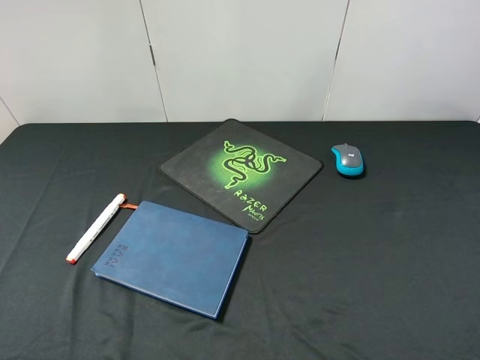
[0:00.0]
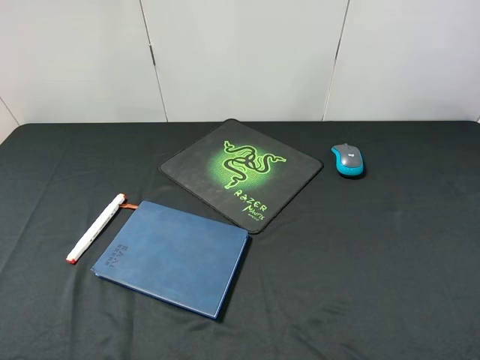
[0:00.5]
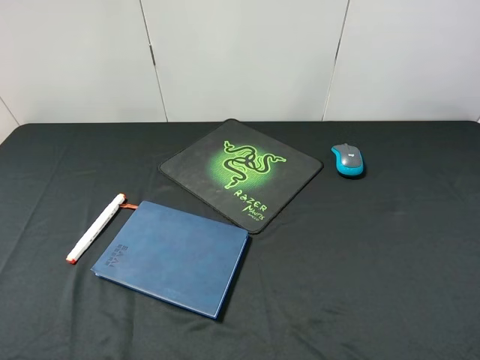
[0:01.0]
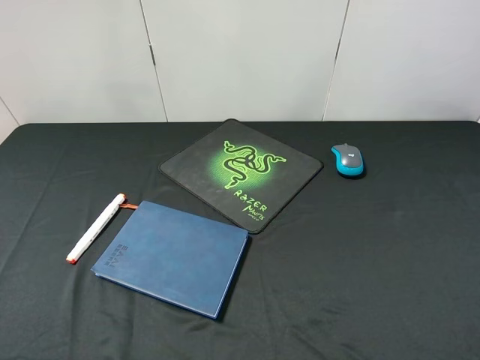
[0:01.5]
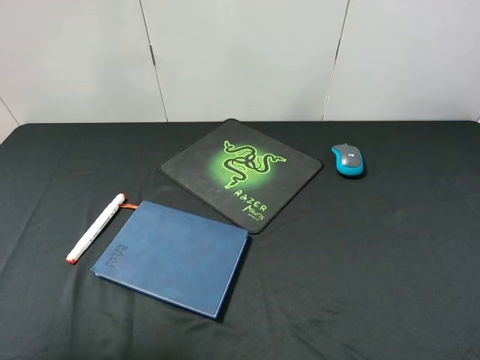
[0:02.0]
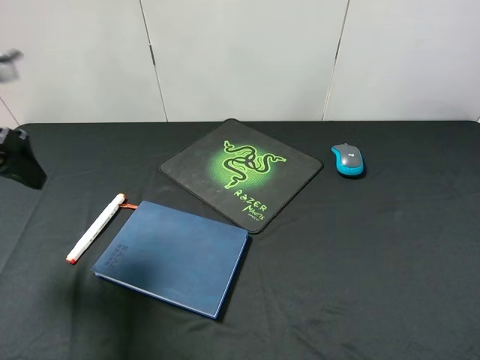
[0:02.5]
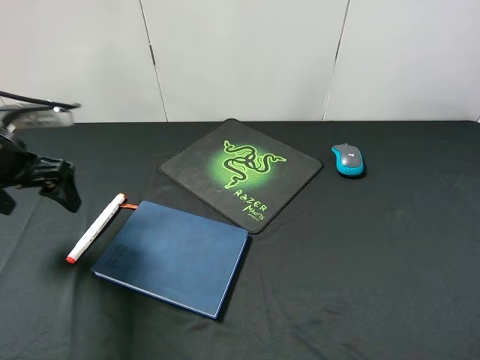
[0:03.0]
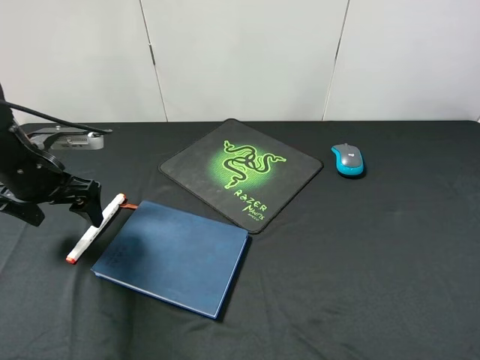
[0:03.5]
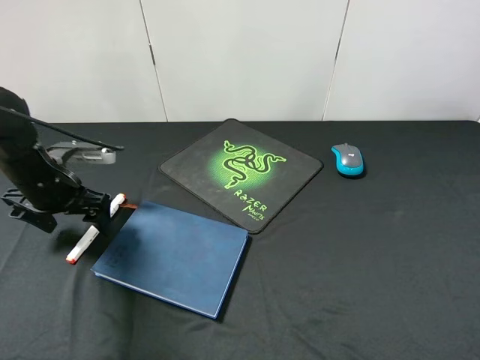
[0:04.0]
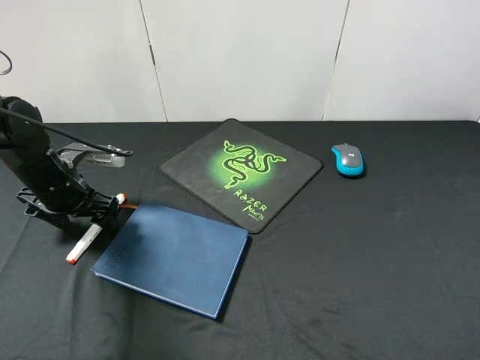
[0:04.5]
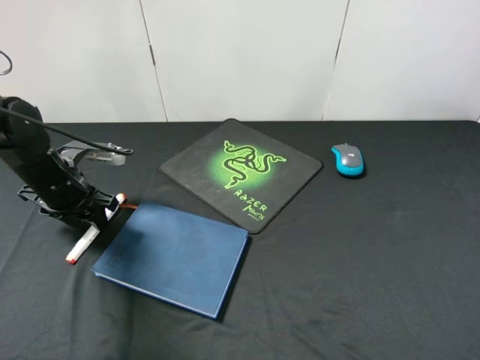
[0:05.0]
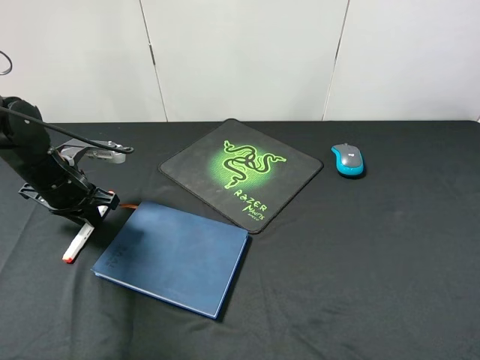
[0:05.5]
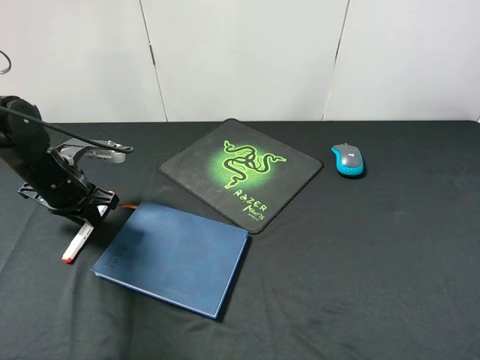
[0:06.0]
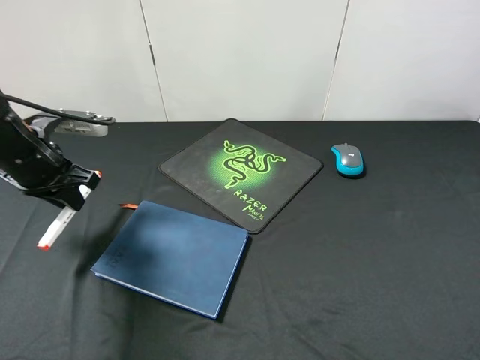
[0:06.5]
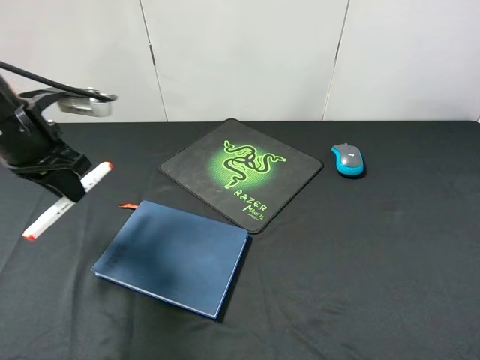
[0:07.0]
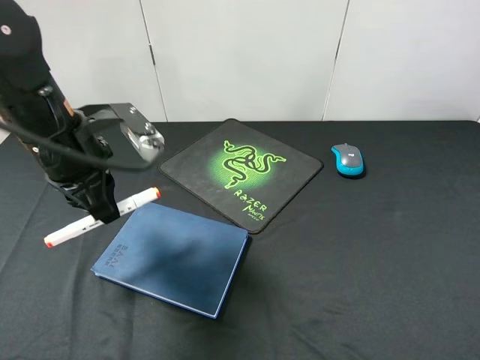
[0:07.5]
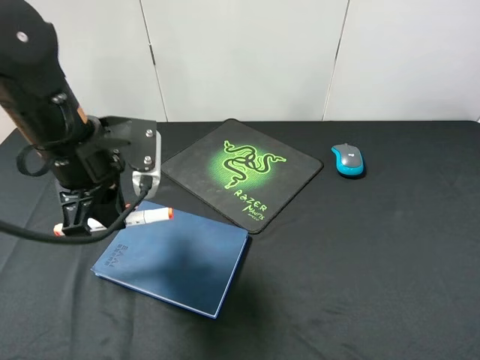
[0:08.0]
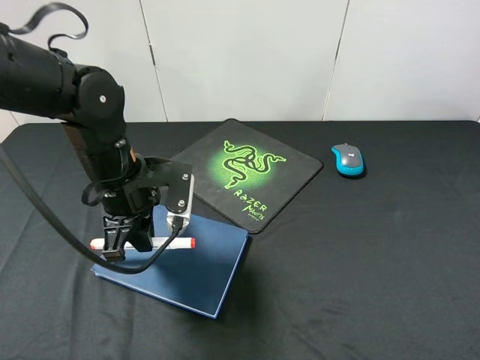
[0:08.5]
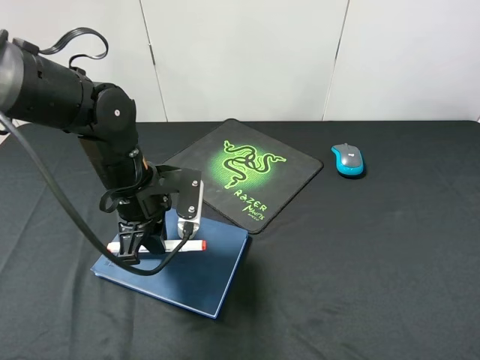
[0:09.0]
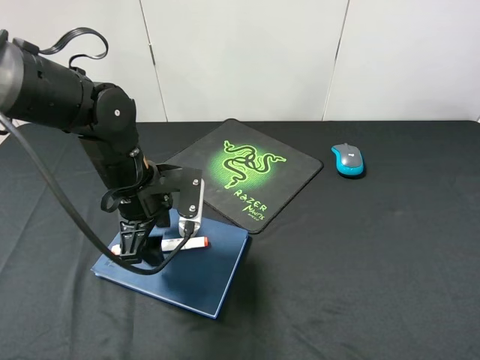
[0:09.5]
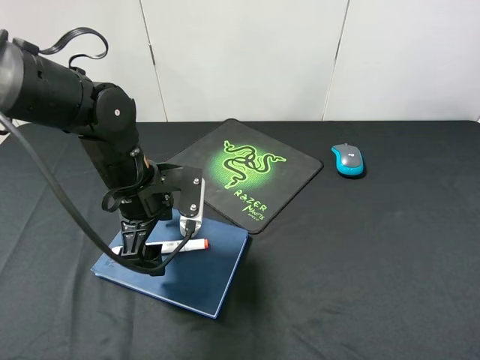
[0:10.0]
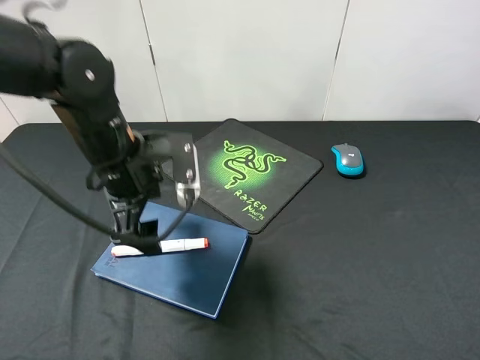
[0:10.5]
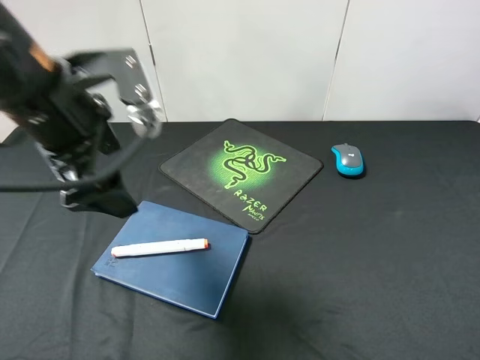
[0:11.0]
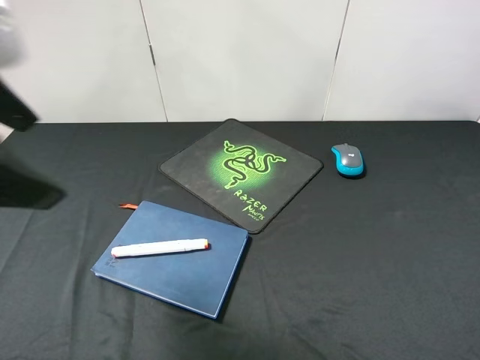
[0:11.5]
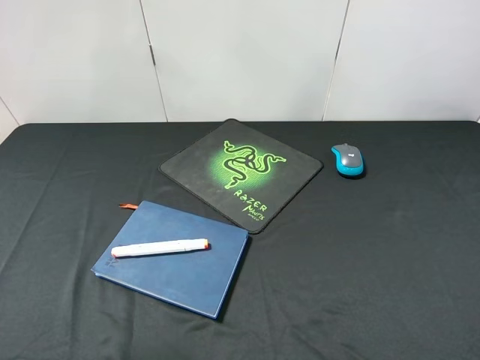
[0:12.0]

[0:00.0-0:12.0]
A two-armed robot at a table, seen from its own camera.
Step, 0:00.0 to 0:06.0: Pick up the marker pen with left gripper.
Step, 0:06.5 to 0:10.0: Place the marker pen on the notebook with left gripper.
0:00.0 to 0:02.0: The left gripper heads forward and upward, covering about 15 cm.
0:02.0 to 0:04.0: The left gripper shifts roughly 30 cm downward and forward.
0:04.0 to 0:06.0: The left gripper closes up.
0:06.0 to 0:08.0: The left gripper shifts some 15 cm to the right, upward and backward.
0:08.0 to 0:10.0: The left gripper shifts about 5 cm downward, and opens.
0:10.0 to 0:12.0: The left gripper is displaced upward, backward and to the left by some 35 cm.

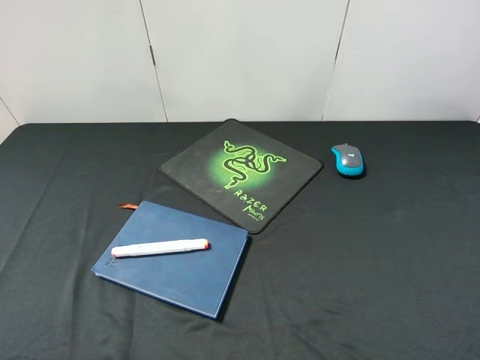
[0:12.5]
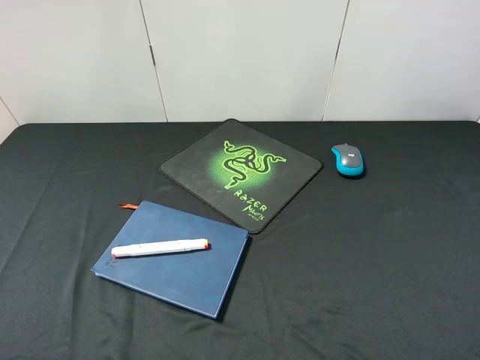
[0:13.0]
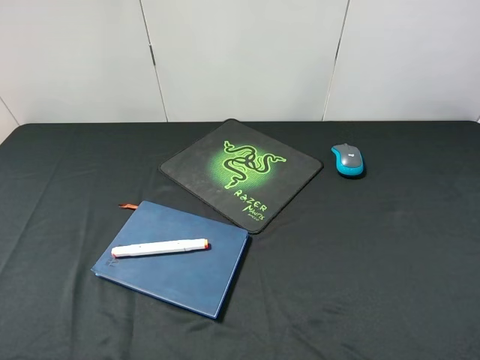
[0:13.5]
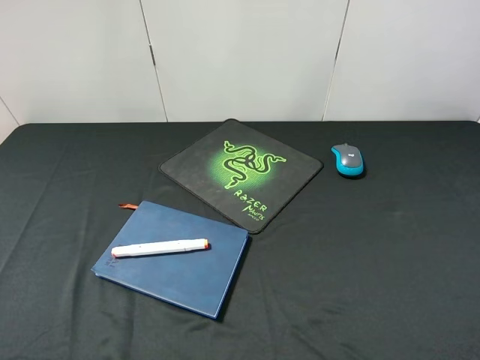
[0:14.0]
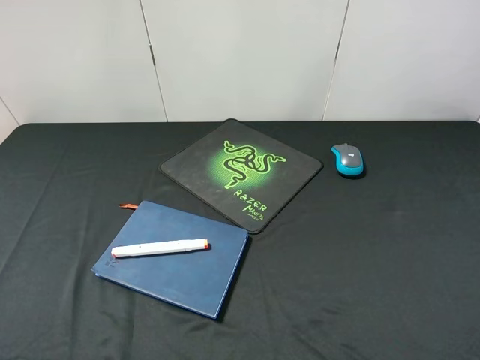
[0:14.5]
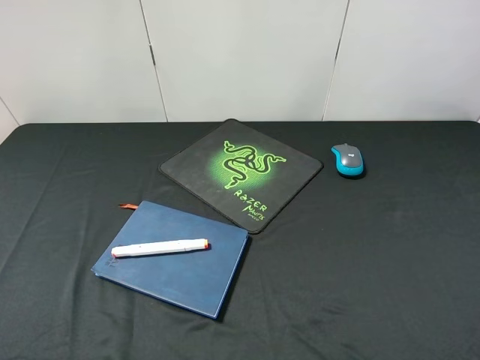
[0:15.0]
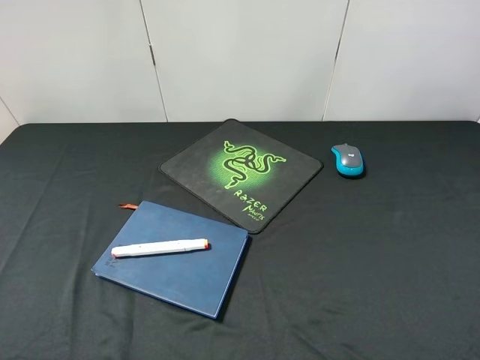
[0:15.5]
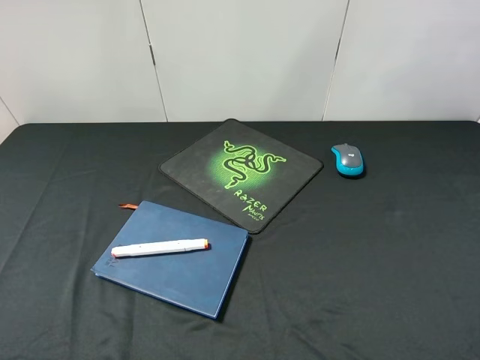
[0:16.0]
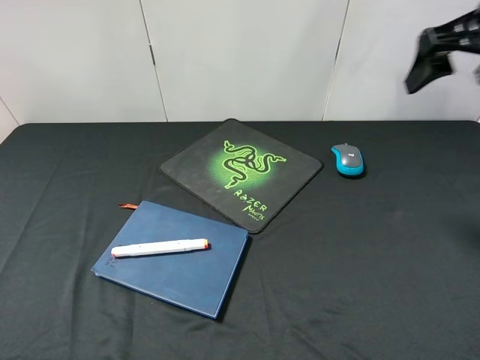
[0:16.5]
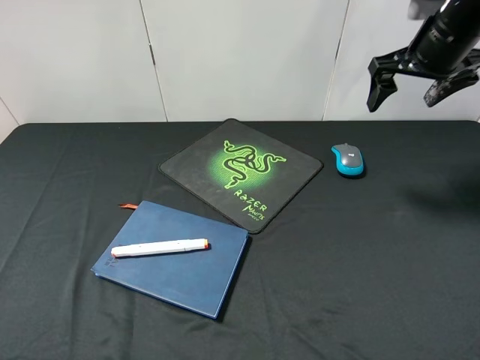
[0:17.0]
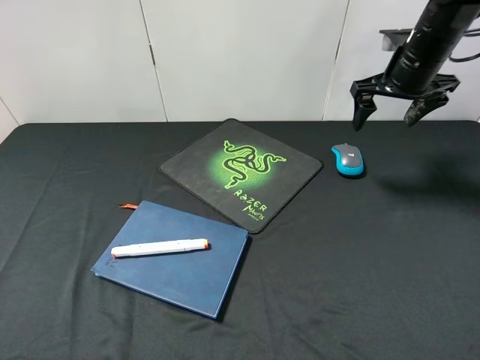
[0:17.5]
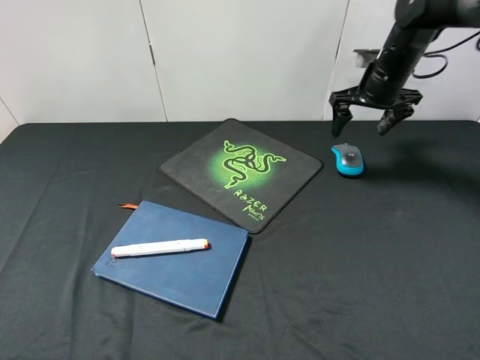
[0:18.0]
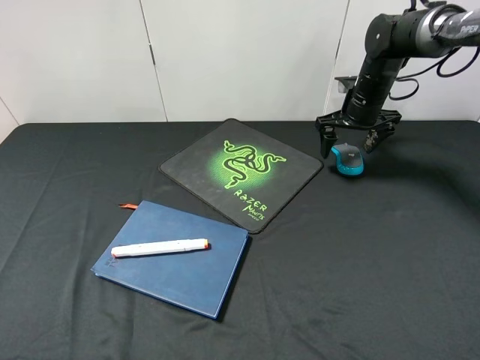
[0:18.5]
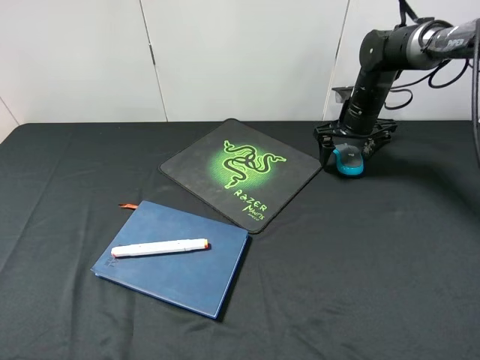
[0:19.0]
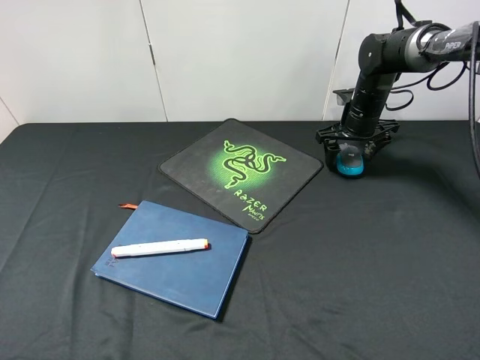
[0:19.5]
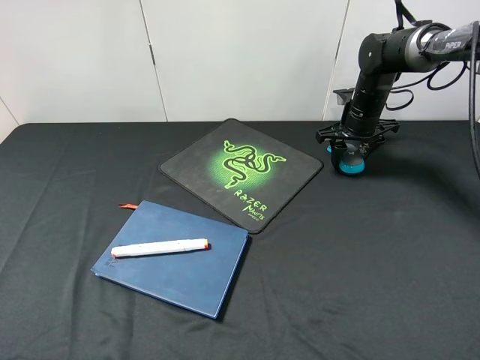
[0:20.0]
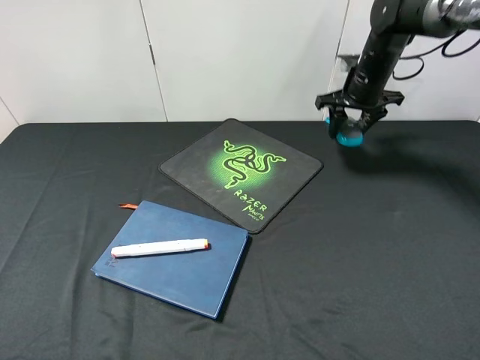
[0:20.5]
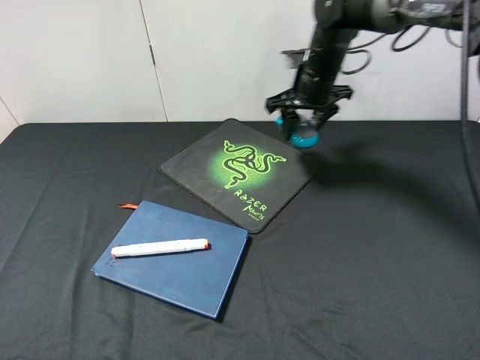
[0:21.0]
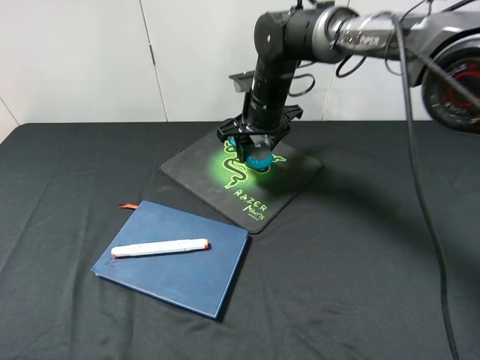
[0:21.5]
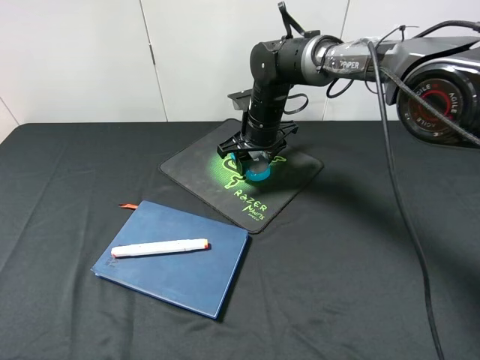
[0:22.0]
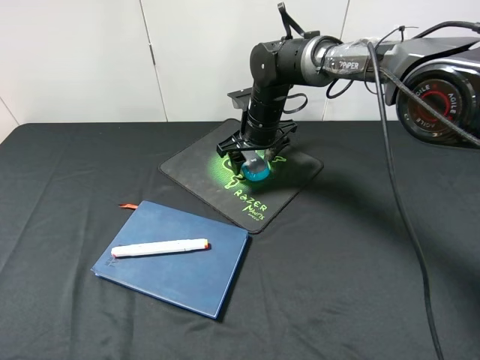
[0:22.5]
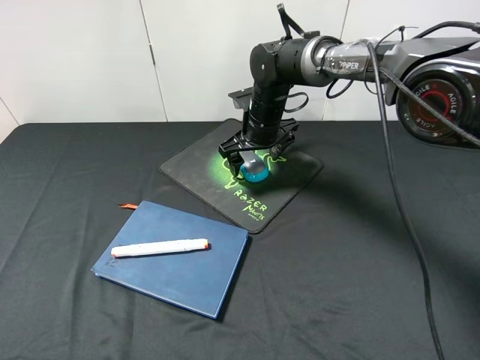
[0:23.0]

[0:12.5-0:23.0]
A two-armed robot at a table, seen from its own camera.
Step, 0:12.5 to 0:20.0: Pick up the mouse with right gripper.
Step, 0:20.5 to 0:22.5: Place the mouse on the mouse pad with right gripper.
0:14.5 to 0:16.5: The right gripper goes roughly 30 cm forward.
0:16.5 to 0:19.0: The right gripper shifts some 25 cm downward and forward.
0:19.0 to 0:21.0: The right gripper shifts roughly 15 cm to the left and upward, and closes its fingers.
0:21.0 to 0:23.0: The right gripper is displaced downward and to the left by roughly 10 cm, and opens up.

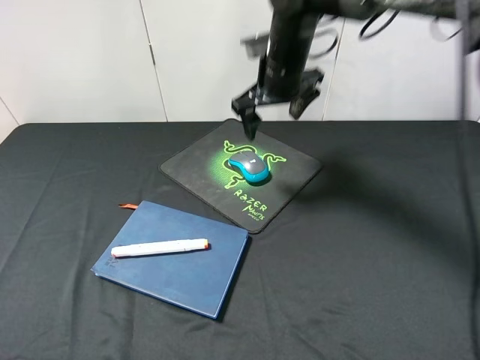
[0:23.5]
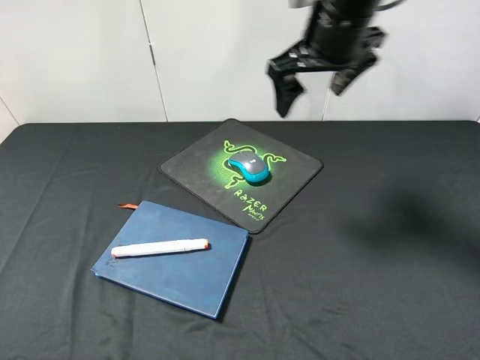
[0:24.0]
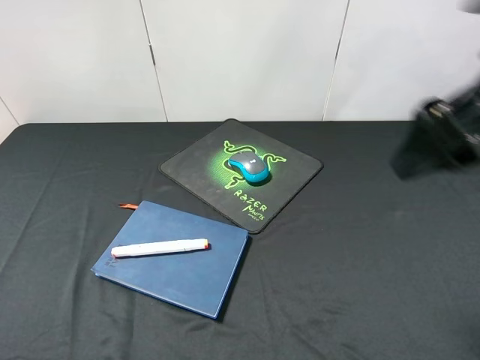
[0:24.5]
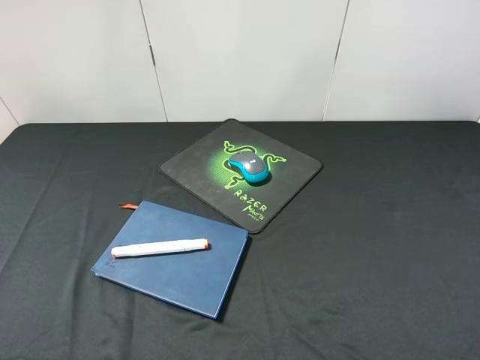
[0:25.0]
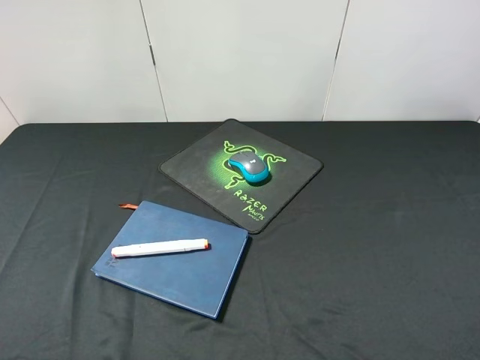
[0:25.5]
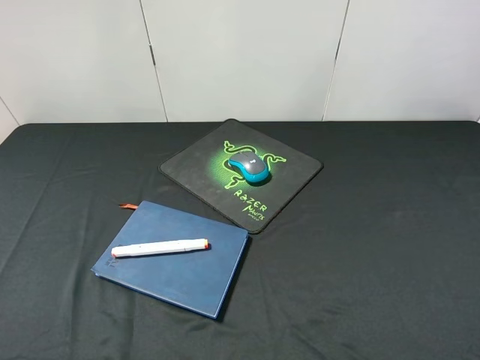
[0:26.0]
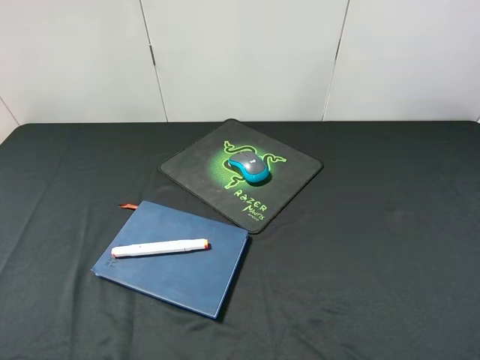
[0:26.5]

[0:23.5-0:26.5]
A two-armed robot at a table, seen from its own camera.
0:23.5 to 0:25.0: The right gripper travels backward and to the right by about 40 cm.
